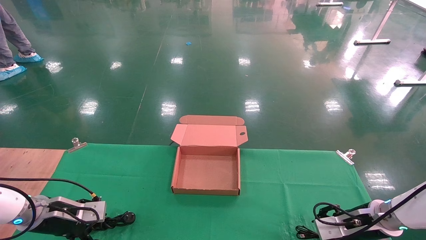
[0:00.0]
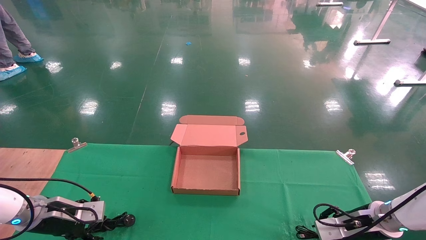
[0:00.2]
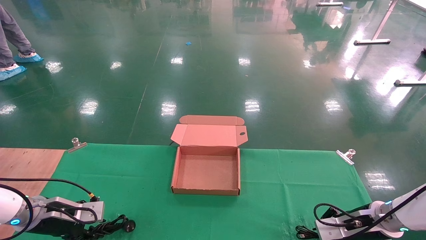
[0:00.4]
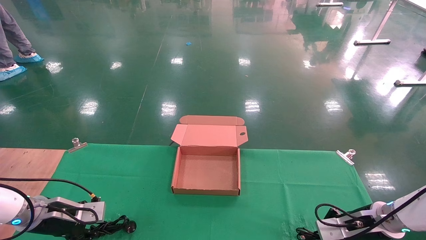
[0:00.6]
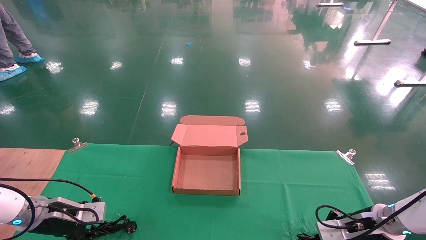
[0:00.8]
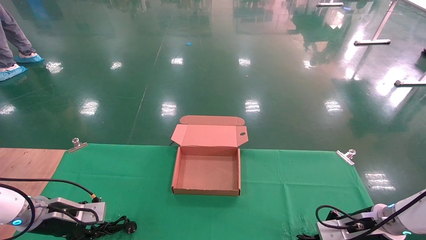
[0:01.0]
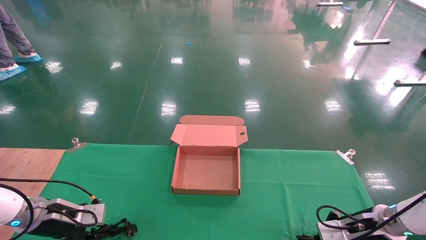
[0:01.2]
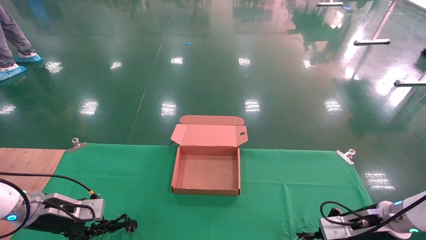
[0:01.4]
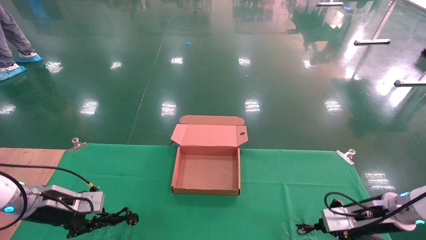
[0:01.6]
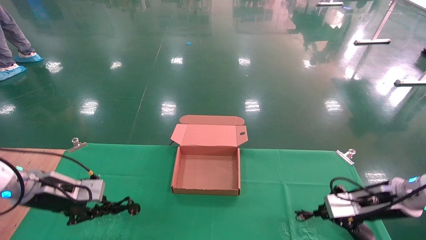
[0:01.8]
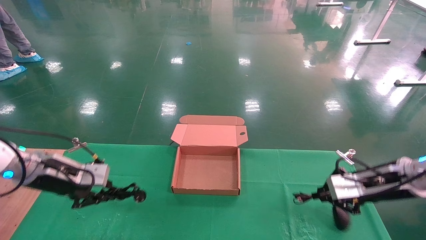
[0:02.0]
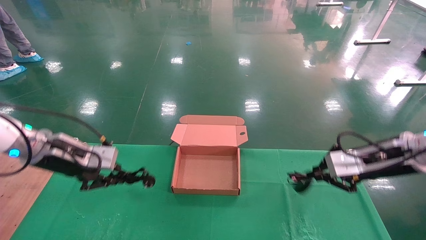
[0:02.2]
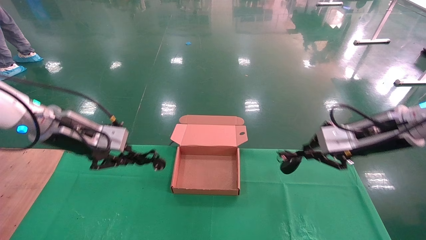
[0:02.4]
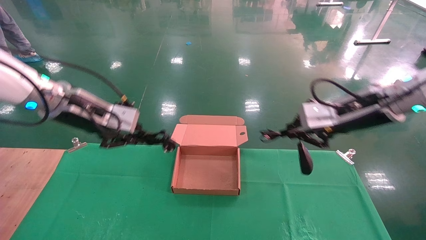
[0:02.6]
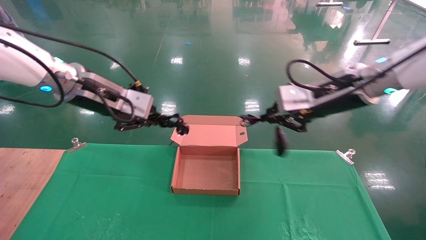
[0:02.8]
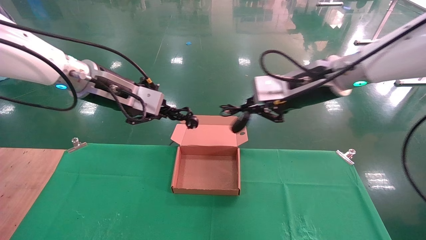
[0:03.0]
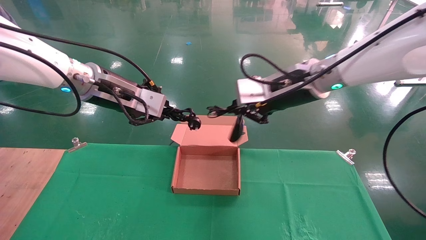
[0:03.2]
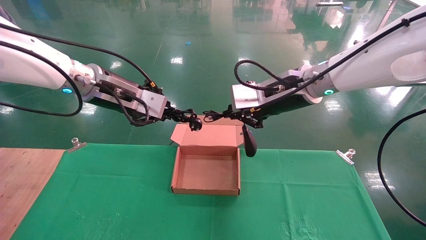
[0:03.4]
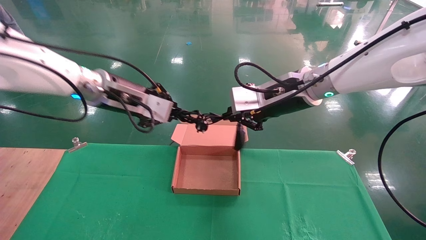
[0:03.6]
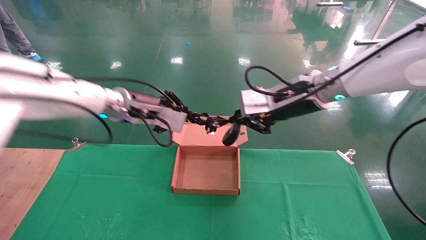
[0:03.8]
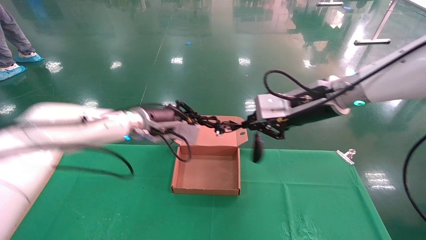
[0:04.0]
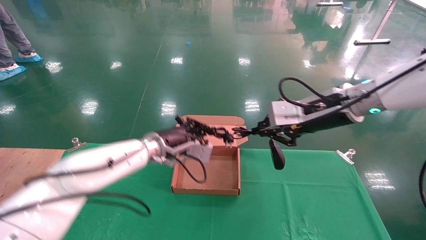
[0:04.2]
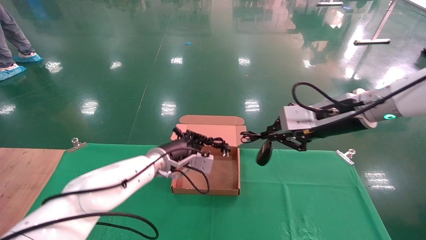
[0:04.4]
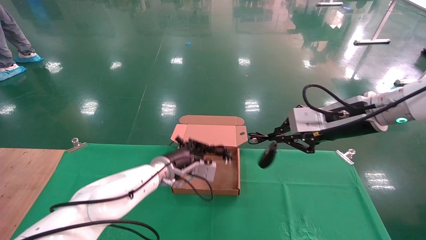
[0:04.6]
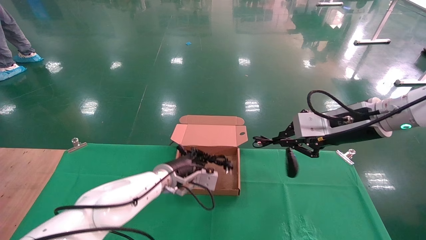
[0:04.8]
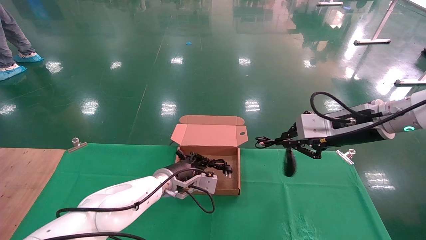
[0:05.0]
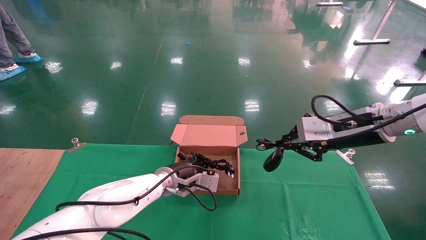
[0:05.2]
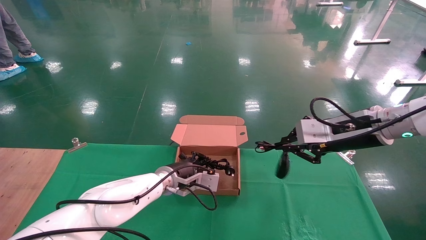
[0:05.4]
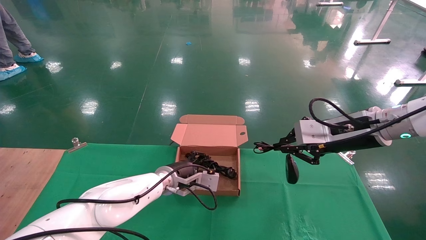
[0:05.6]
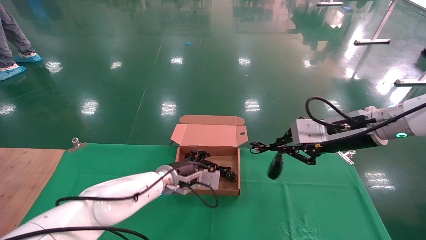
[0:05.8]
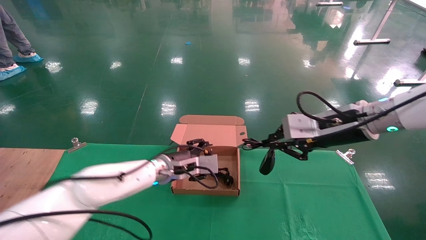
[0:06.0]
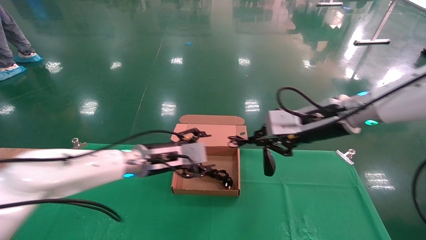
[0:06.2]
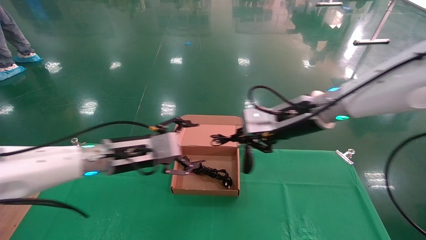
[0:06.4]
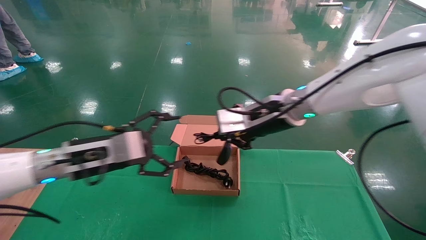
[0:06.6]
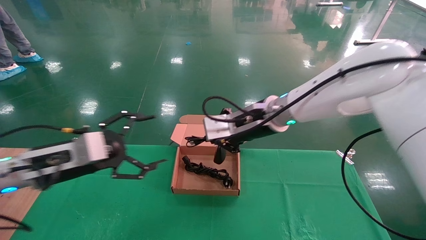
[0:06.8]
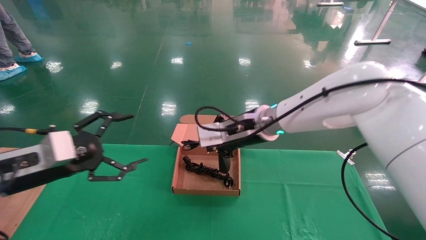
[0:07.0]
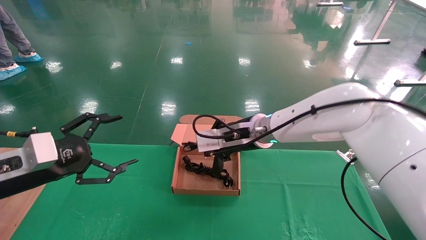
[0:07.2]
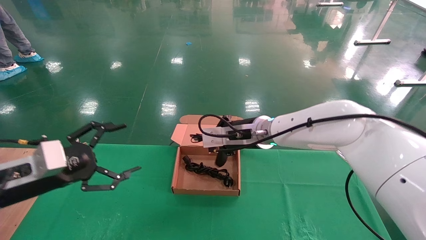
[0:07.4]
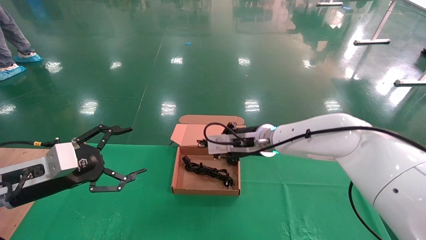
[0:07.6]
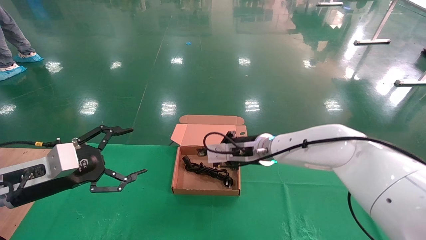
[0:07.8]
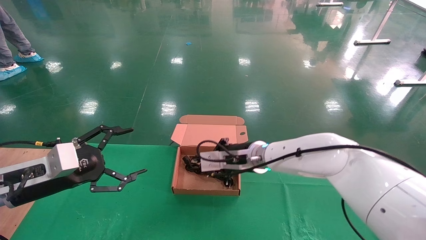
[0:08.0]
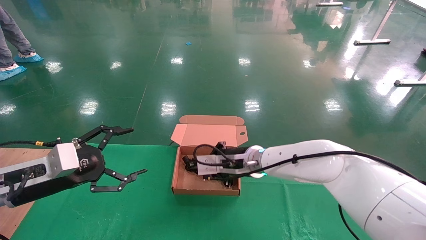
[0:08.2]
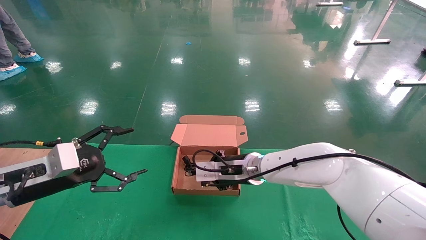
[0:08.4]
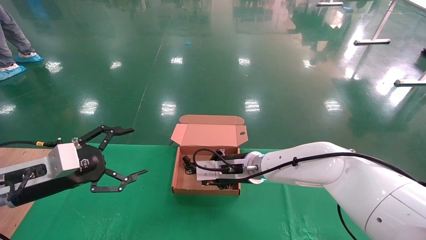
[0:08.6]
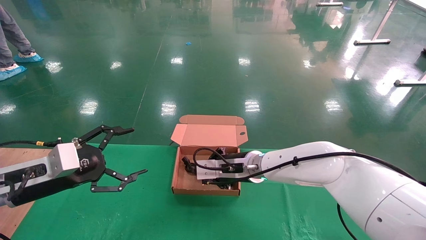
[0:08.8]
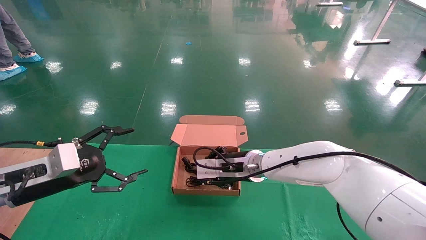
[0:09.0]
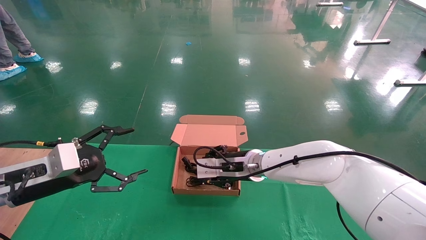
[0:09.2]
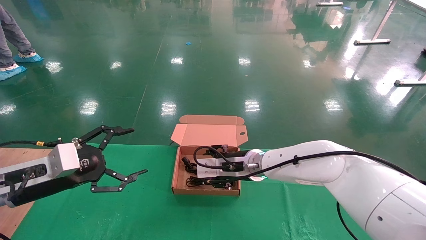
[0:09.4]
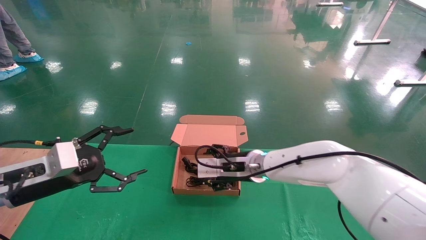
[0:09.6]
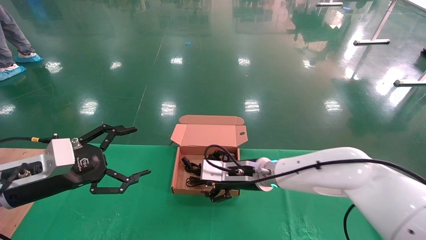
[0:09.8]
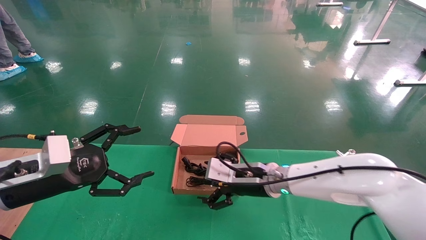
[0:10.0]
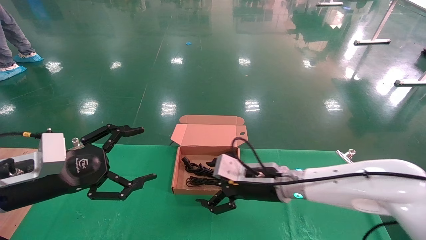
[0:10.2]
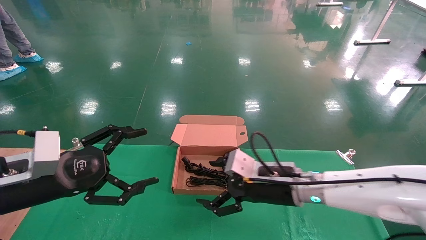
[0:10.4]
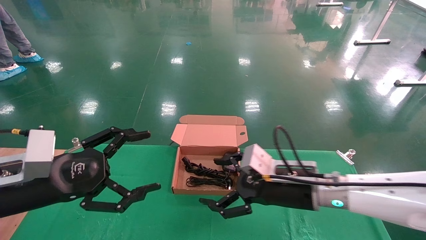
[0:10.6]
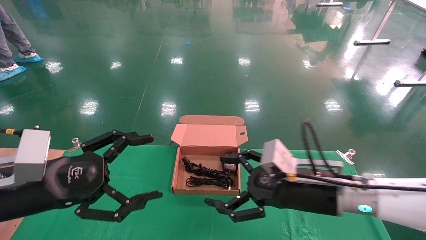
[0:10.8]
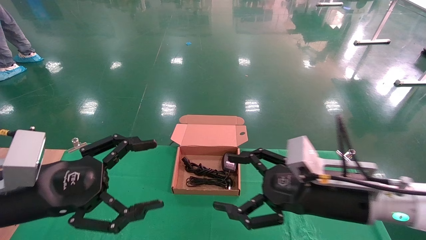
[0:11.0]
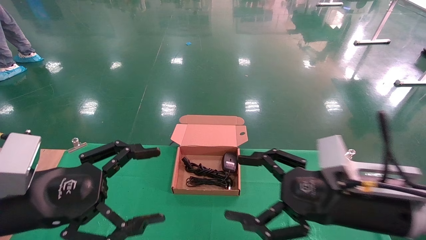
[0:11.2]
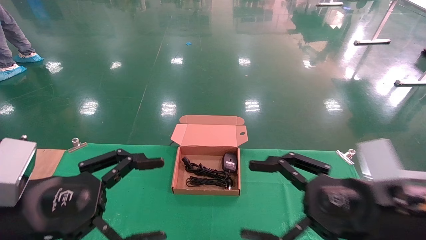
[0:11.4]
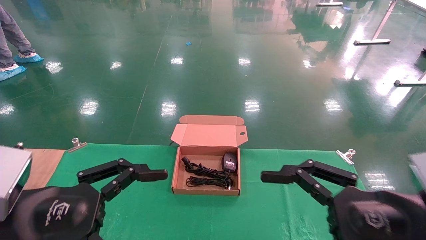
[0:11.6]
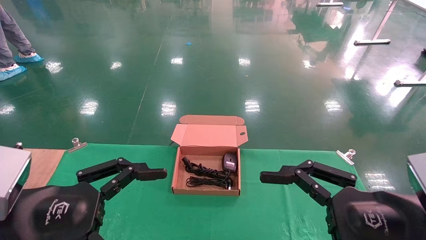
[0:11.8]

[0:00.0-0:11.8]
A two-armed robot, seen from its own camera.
Step, 0:00.0 to 0:02.0: Grab and lift both the mouse and power cord from the accessory packaging area at the same time.
Step, 0:02.2 to 0:09.0: Place the mouse and power cord into the box.
0:00.0 to 0:01.4: The right gripper closes; the left gripper closes up.
0:01.4 to 0:03.0: The left gripper is displaced upward and to the right by approximately 30 cm. The right gripper goes roughly 35 cm upward and to the left.
0:03.0 to 0:04.4: The left gripper moves downward, to the right and forward, about 25 cm. The right gripper is displaced to the right by roughly 5 cm.
0:04.4 to 0:06.0: The left gripper opens.
0:06.0 to 0:07.4: The right gripper moves to the left and forward, roughly 15 cm; the left gripper is displaced to the left and backward by about 25 cm, and opens up.
0:07.4 to 0:08.8: The right gripper shifts roughly 10 cm downward.
0:08.8 to 0:10.4: The right gripper shifts roughly 10 cm backward and to the right, and opens up. Meanwhile the left gripper shifts some 5 cm backward.
0:10.4 to 0:11.8: The right gripper shifts about 25 cm backward and to the right, while the left gripper travels backward by roughly 10 cm.
